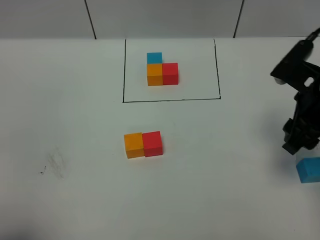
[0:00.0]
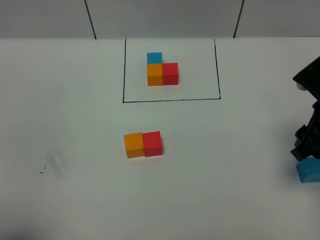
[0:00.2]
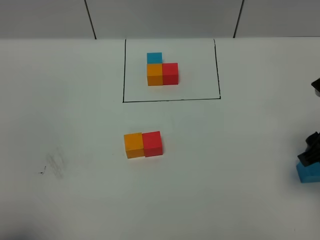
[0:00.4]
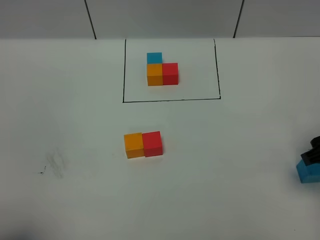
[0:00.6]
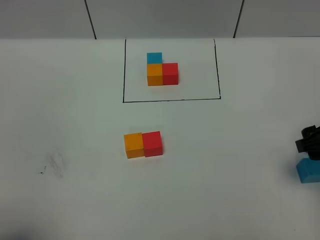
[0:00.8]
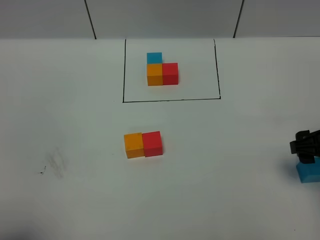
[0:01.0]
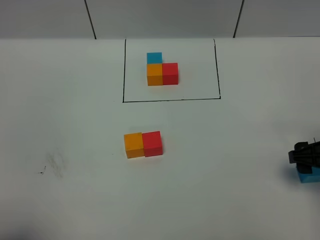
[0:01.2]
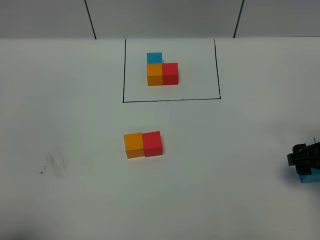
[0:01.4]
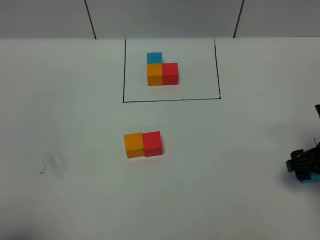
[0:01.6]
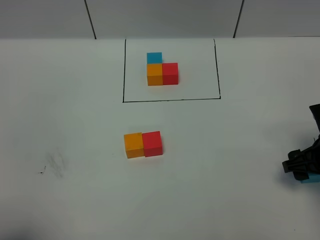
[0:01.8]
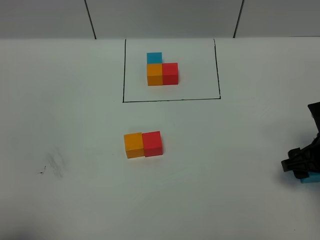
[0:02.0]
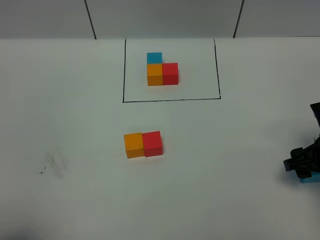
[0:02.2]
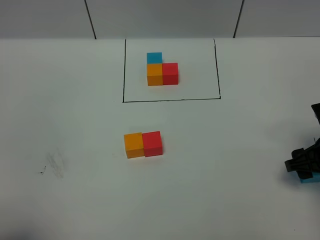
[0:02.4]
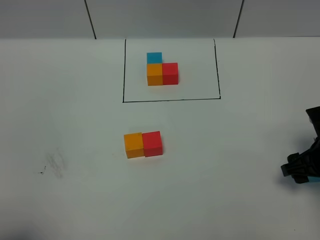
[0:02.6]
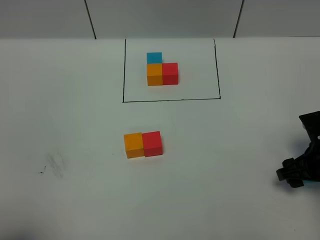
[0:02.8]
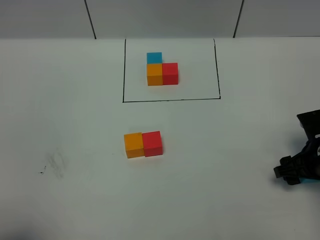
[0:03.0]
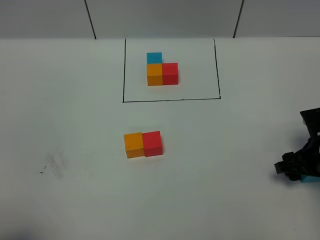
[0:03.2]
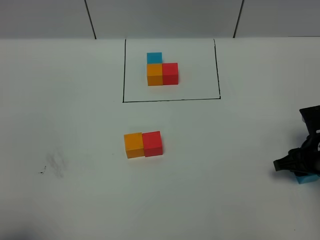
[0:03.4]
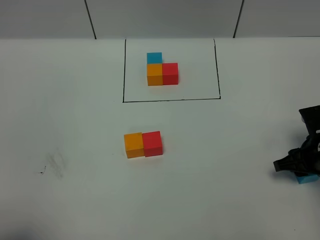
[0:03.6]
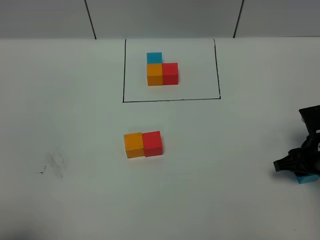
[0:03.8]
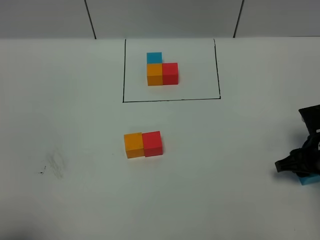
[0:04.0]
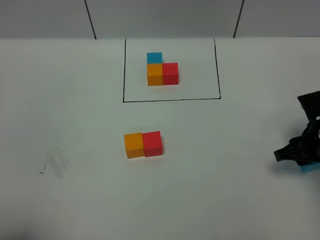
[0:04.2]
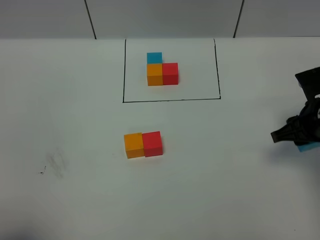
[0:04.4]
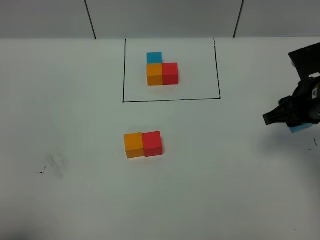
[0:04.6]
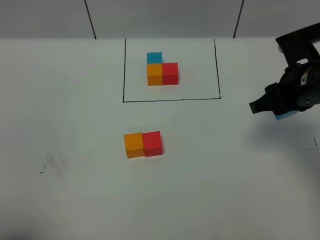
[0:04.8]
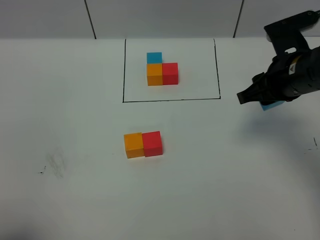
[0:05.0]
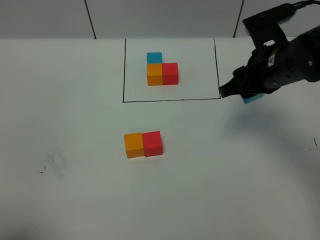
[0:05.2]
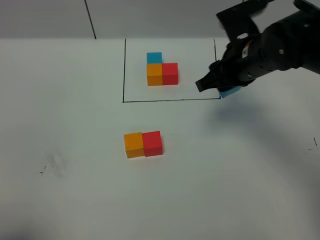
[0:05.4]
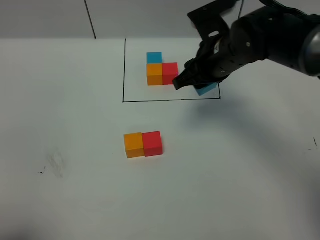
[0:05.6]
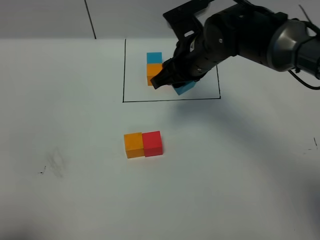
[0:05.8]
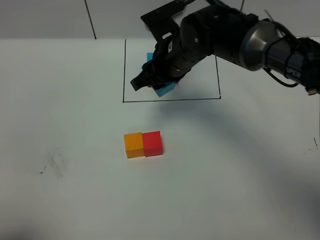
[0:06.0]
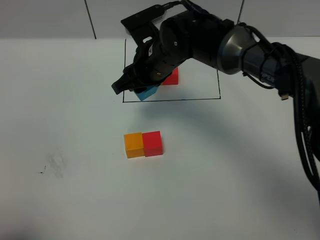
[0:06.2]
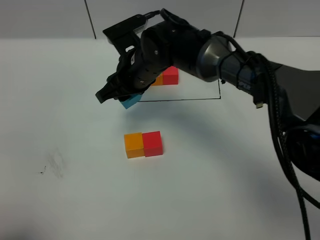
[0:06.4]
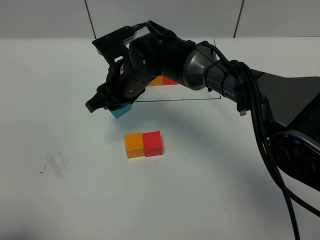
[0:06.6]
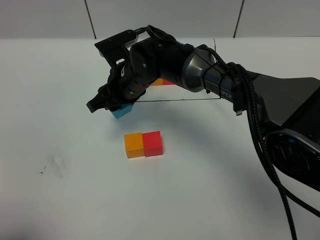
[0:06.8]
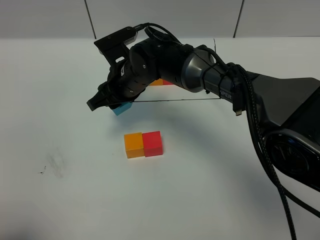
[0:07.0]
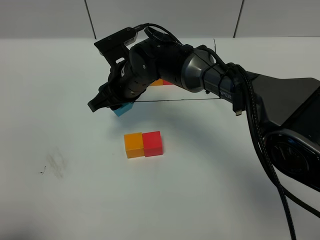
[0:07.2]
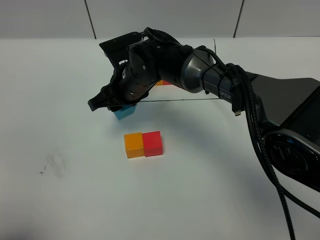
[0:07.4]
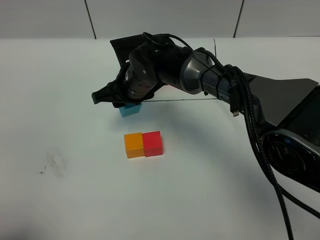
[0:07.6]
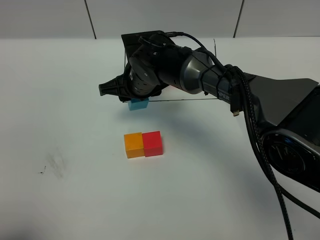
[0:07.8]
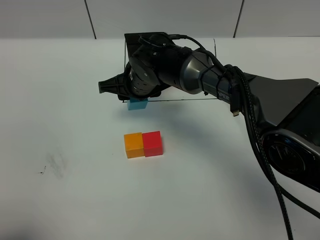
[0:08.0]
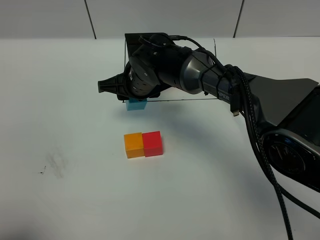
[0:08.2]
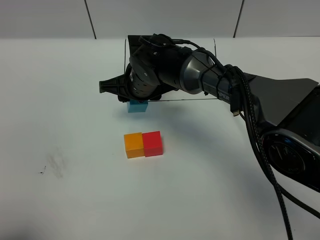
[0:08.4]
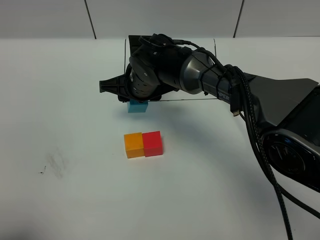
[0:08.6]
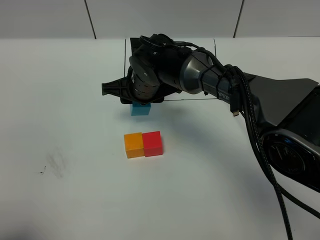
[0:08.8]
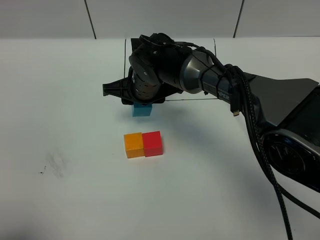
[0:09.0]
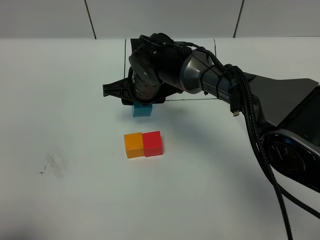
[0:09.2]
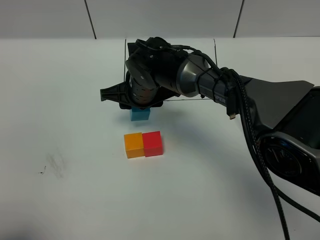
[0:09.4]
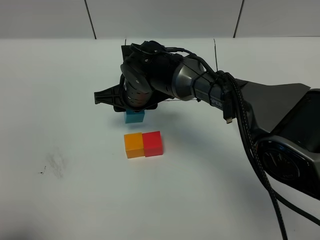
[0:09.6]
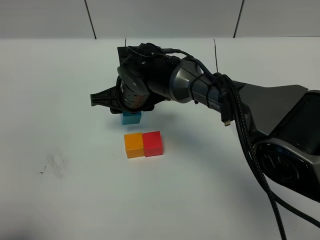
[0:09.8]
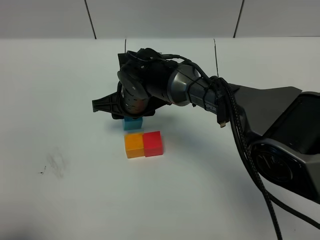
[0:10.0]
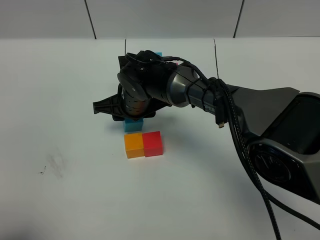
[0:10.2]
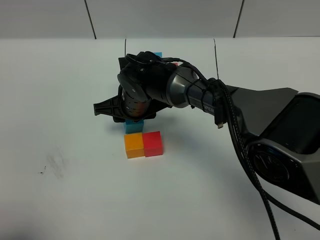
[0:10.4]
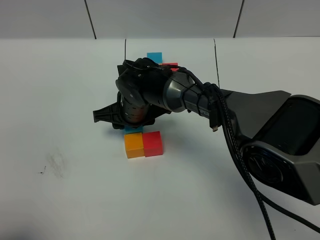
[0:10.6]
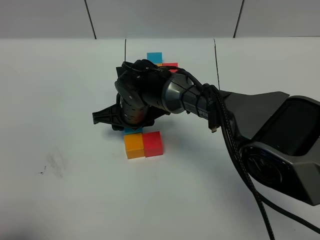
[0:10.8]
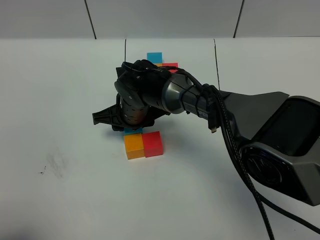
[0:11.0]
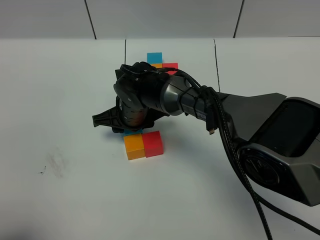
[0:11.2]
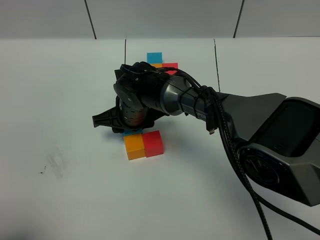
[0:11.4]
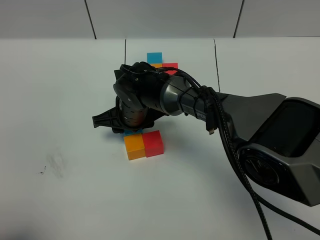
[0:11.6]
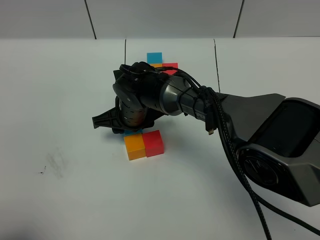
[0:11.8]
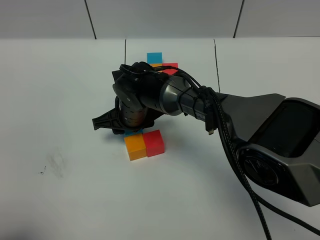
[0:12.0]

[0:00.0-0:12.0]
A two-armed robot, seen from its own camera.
Task of the whole recording: According to the building block template in front, assemble the scattered blocks together.
0:00.0 to 0:01.6: The right gripper travels downward by approximately 10 cm.
0:01.6 to 0:03.0: The grippers move only a little.
0:03.0 to 0:04.4: The right gripper is displaced upward by roughly 10 cm, and closes up.
0:04.4 to 0:06.0: The right gripper goes about 25 cm to the left and forward.
0:06.0 to 0:07.6: The right gripper goes approximately 10 cm to the left and downward.
0:07.6 to 0:10.4: The grippers stay close to where they were, moving slightly.
0:10.4 to 0:12.0: The grippers stay close to where they were, moving slightly.

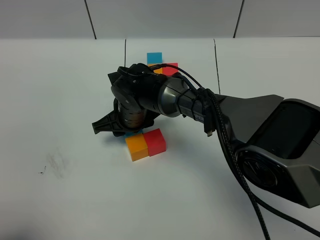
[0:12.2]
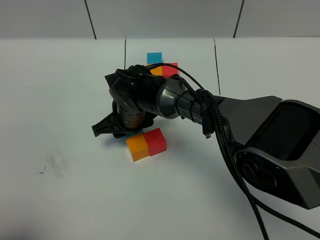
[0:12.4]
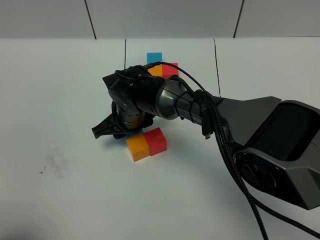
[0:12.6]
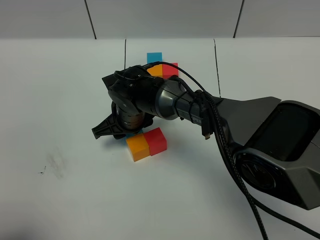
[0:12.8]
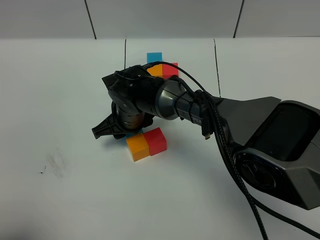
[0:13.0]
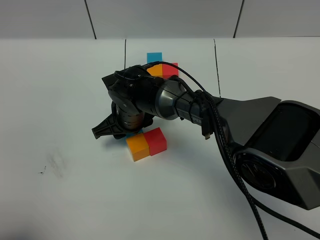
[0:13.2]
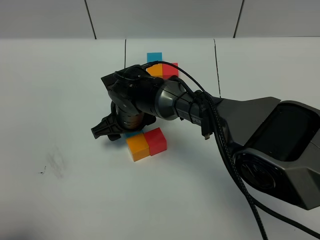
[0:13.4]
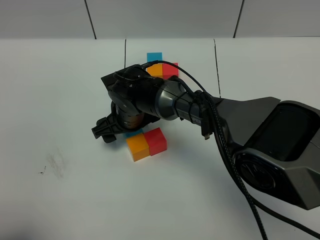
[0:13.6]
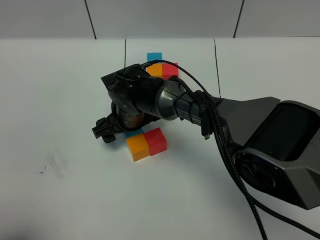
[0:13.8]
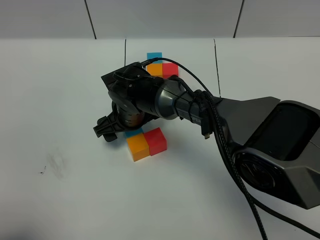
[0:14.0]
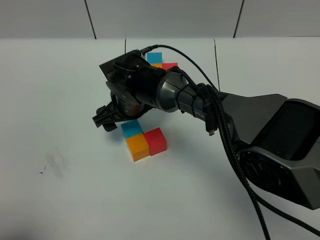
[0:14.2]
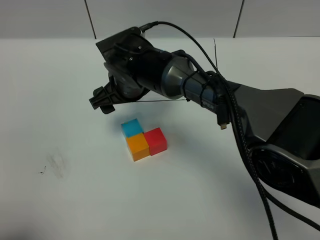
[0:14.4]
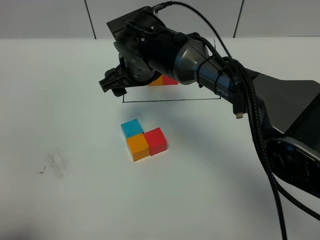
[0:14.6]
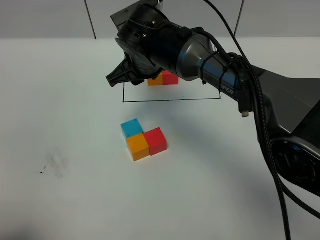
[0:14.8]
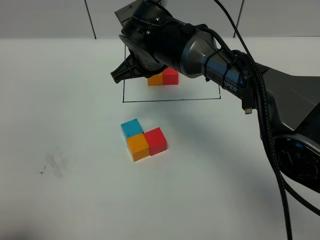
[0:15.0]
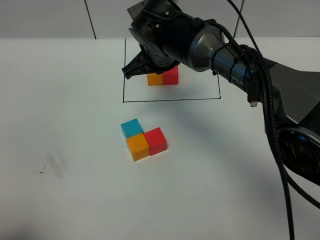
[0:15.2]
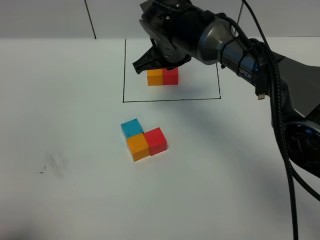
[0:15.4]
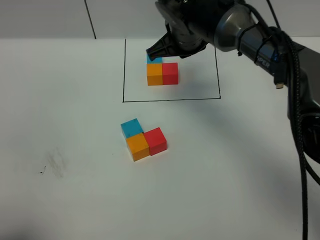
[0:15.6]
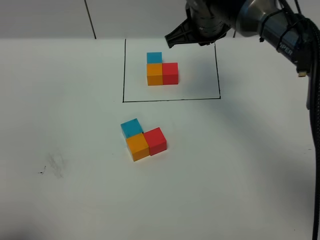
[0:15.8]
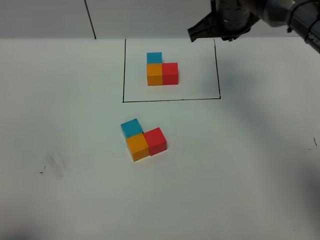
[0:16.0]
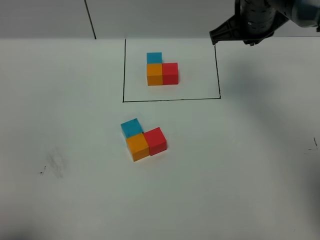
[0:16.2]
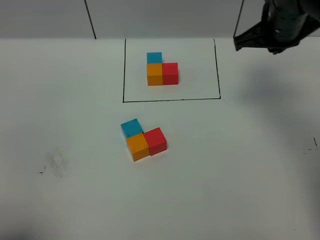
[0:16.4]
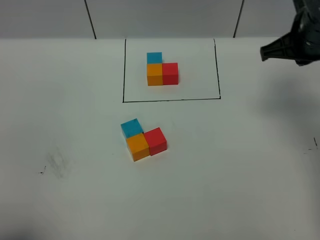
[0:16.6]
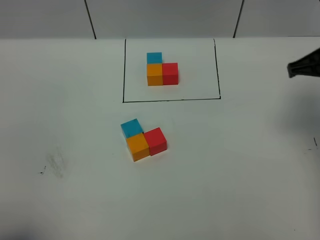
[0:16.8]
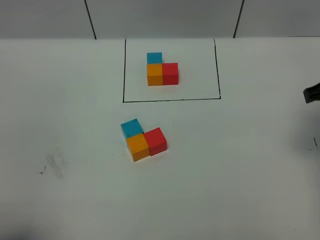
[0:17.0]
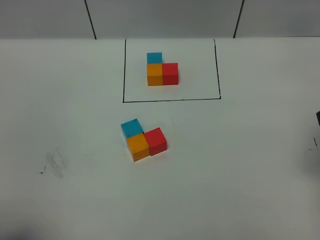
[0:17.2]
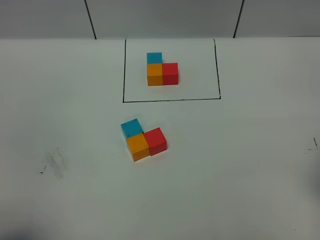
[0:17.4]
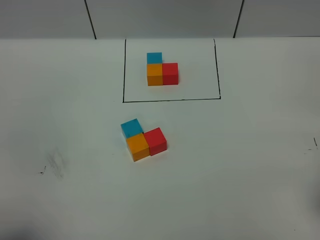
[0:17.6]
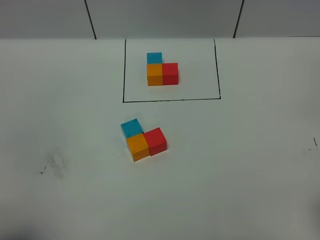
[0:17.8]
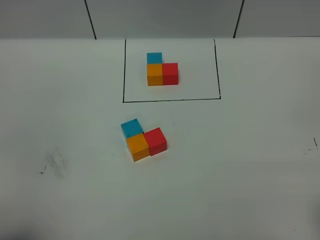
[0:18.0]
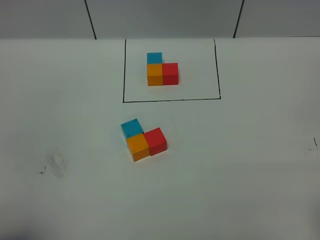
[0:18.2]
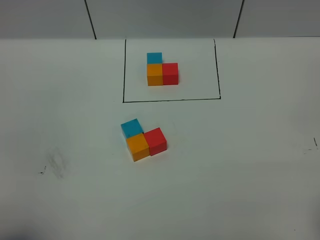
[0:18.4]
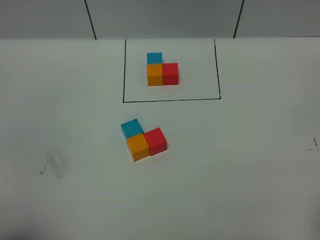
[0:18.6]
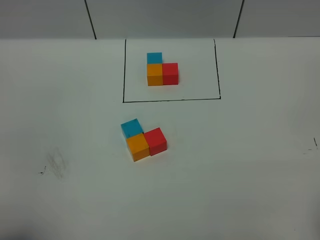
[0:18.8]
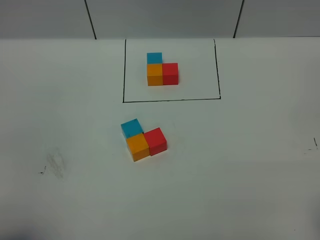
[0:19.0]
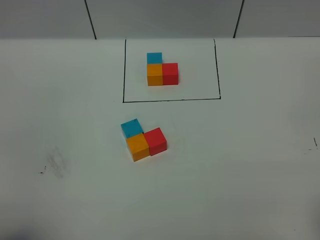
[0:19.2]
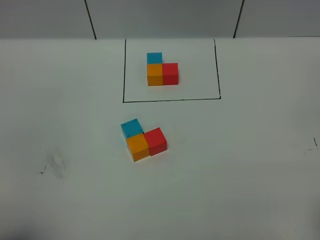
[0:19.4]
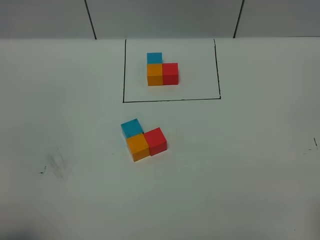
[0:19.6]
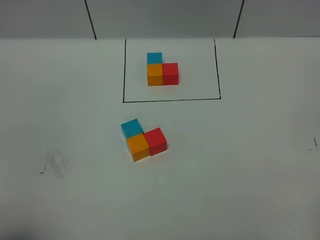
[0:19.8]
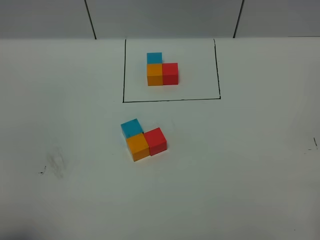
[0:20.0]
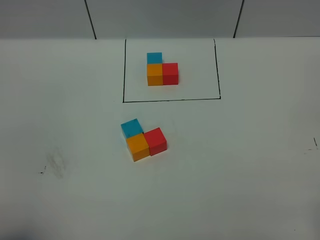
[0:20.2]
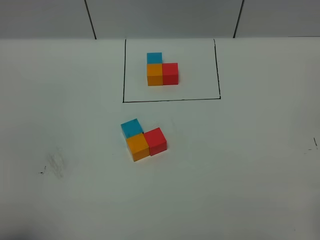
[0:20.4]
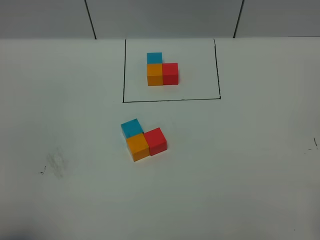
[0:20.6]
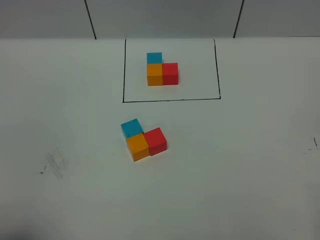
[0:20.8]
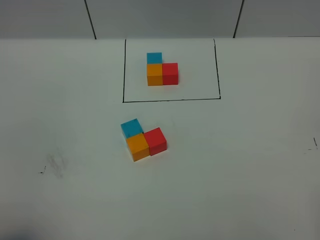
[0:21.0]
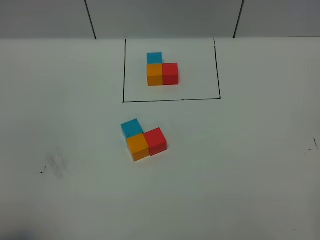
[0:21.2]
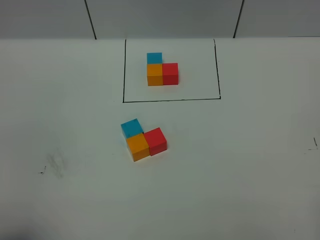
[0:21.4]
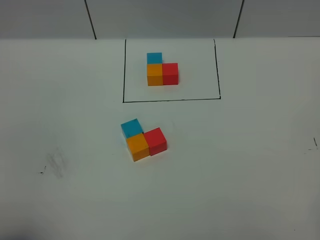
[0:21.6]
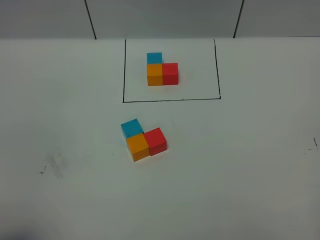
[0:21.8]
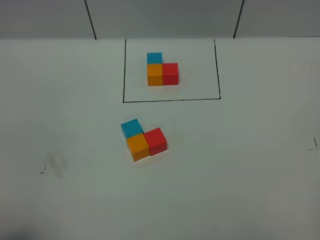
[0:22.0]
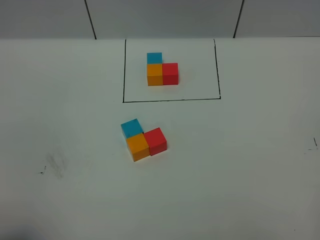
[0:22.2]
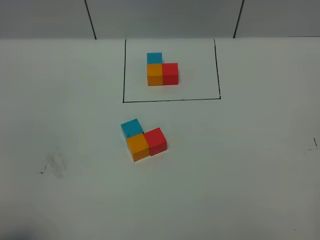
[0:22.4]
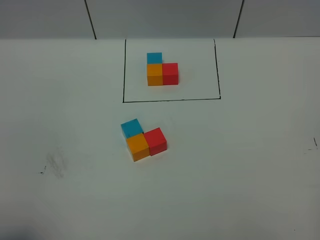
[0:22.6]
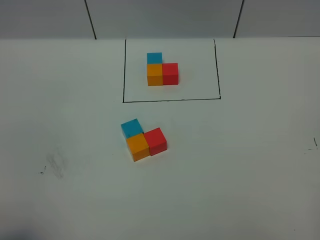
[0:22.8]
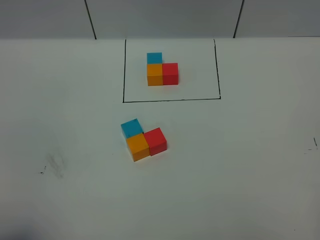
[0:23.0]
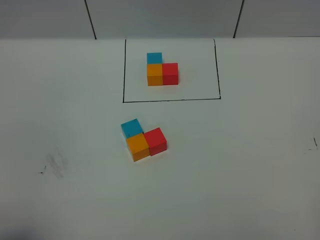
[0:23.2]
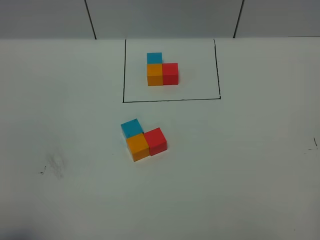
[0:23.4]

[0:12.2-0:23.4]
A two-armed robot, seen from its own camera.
Task of the whole recording: According to the building block template in front, assemble the scattered blocks together.
Step, 0:12.2 to 0:14.6: Put the blue cube on the behind of the orange cube.
0:12.2 to 0:13.8: The right gripper opens up.
0:13.8 to 0:15.4: The right gripper is displaced upward, to the right and forward by roughly 15 cm, and closes.
0:15.4 to 0:17.0: The right gripper moves to the right and backward, roughly 30 cm.
0:17.0 to 0:18.6: The right gripper shifts approximately 20 cm backward.
0:21.8 to 0:23.4: Both grippers stay about where they are.
